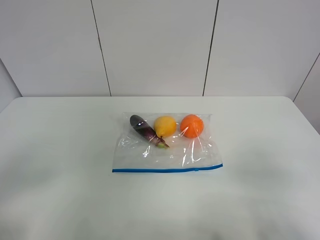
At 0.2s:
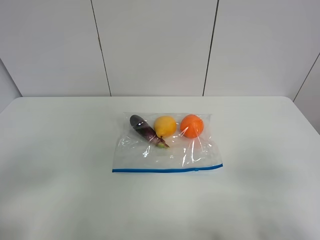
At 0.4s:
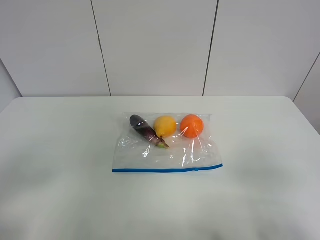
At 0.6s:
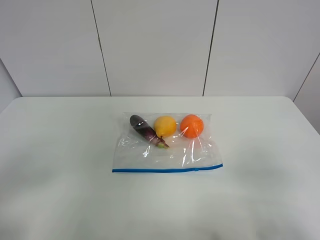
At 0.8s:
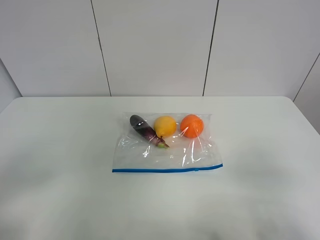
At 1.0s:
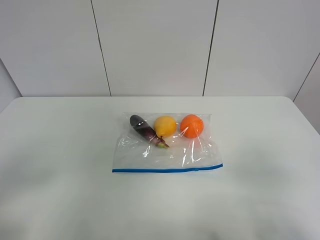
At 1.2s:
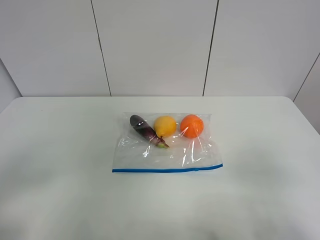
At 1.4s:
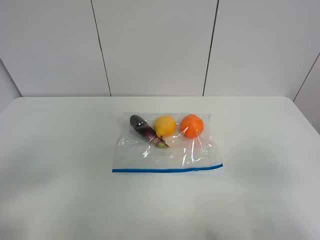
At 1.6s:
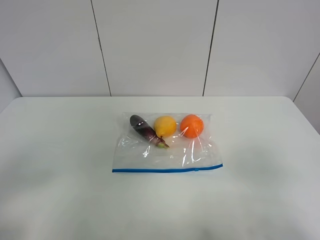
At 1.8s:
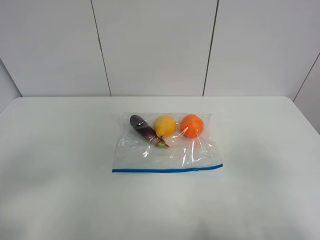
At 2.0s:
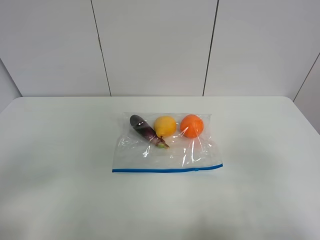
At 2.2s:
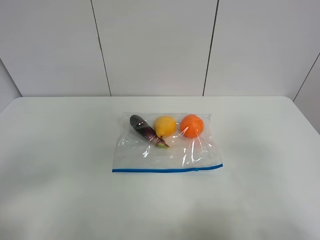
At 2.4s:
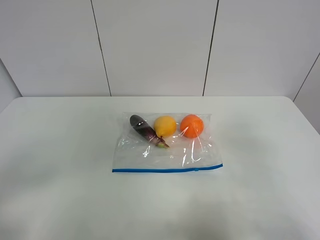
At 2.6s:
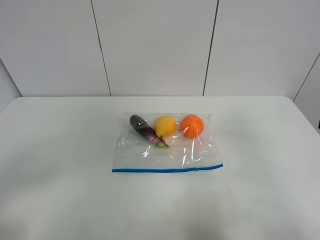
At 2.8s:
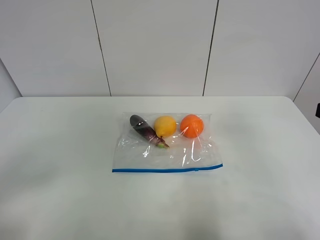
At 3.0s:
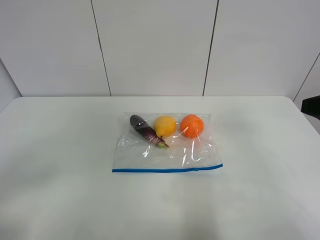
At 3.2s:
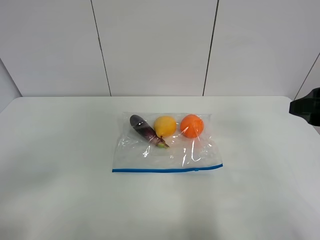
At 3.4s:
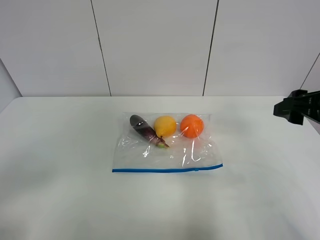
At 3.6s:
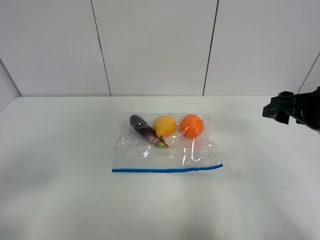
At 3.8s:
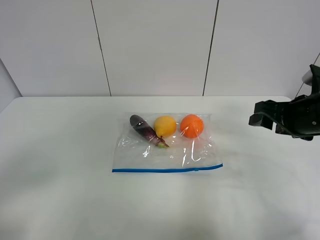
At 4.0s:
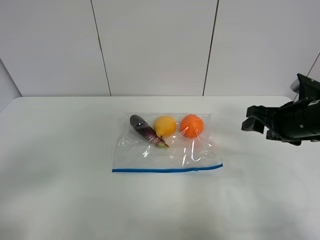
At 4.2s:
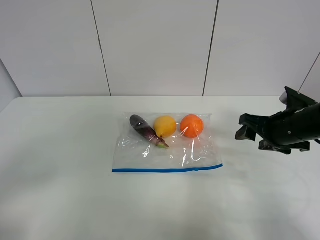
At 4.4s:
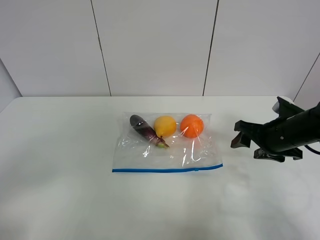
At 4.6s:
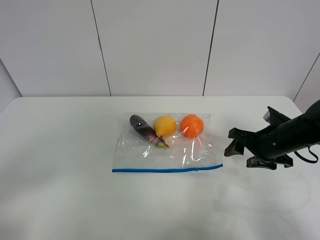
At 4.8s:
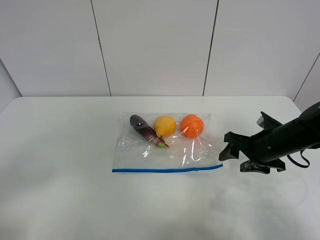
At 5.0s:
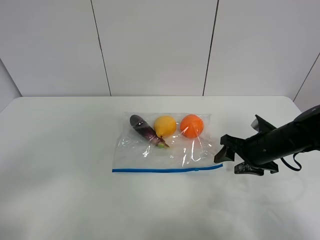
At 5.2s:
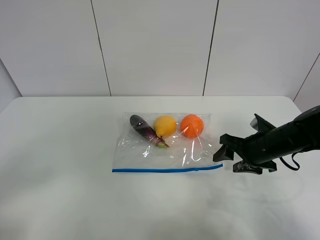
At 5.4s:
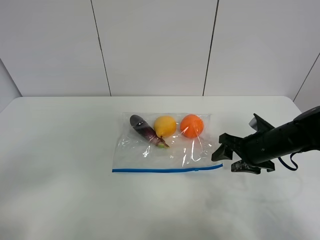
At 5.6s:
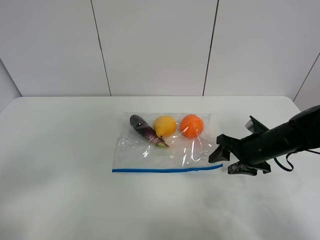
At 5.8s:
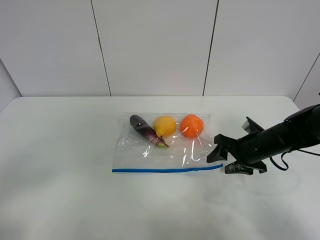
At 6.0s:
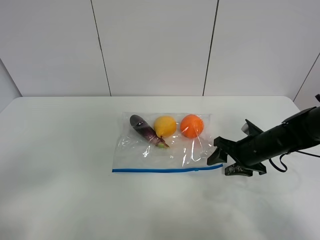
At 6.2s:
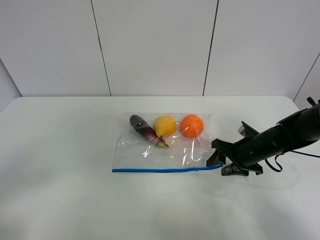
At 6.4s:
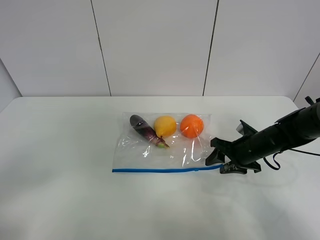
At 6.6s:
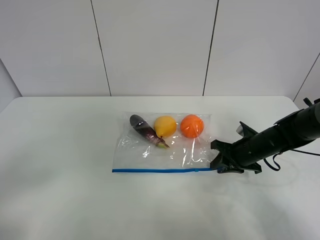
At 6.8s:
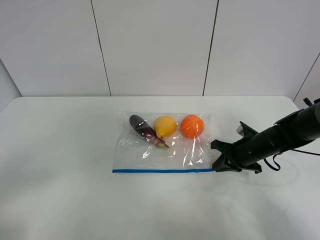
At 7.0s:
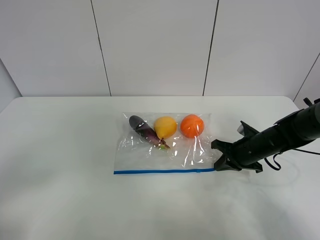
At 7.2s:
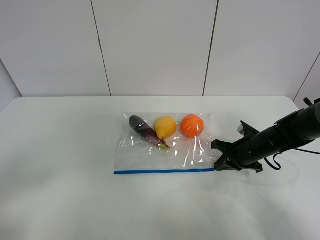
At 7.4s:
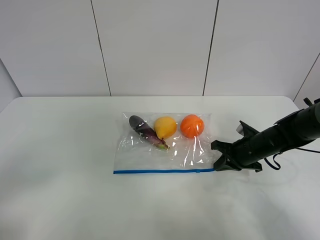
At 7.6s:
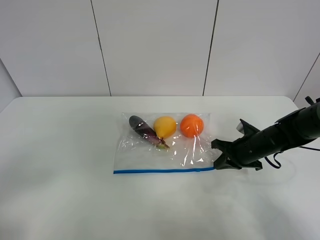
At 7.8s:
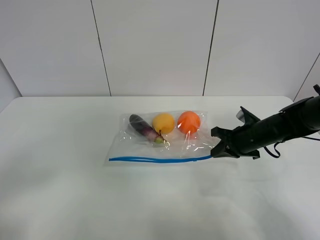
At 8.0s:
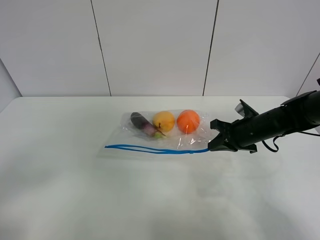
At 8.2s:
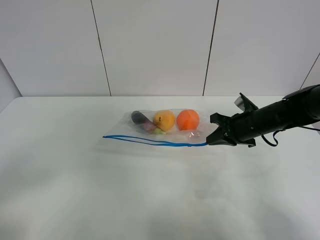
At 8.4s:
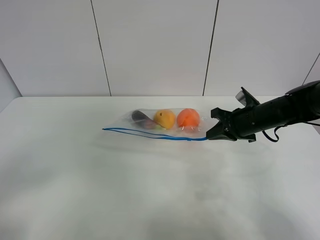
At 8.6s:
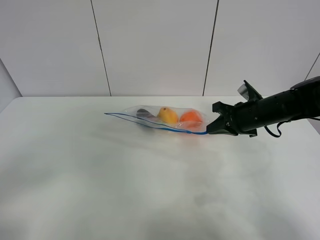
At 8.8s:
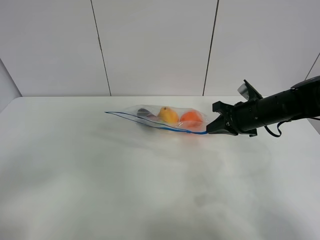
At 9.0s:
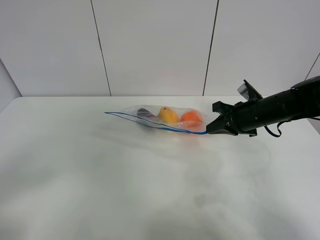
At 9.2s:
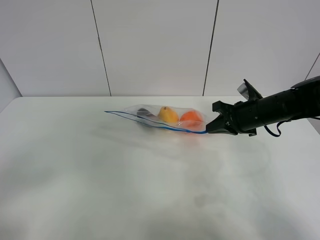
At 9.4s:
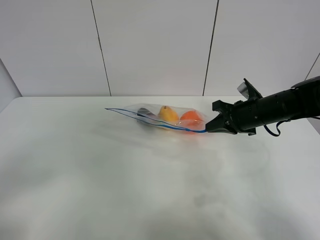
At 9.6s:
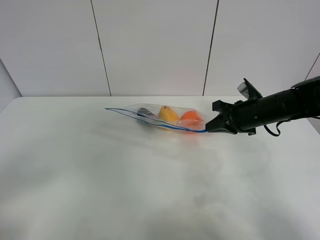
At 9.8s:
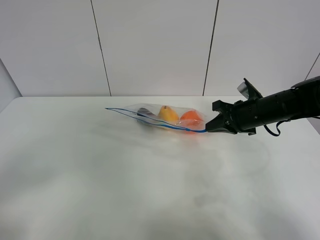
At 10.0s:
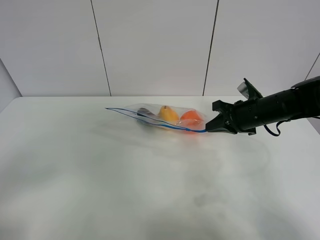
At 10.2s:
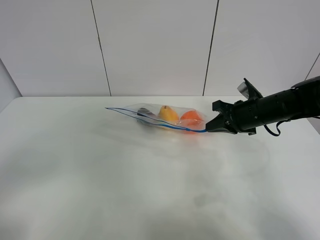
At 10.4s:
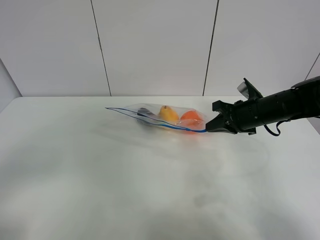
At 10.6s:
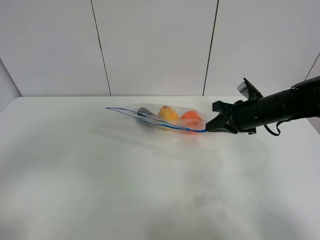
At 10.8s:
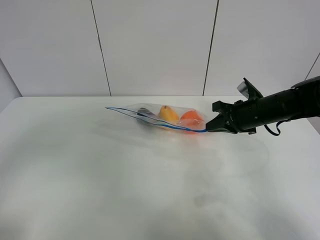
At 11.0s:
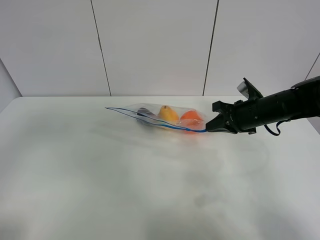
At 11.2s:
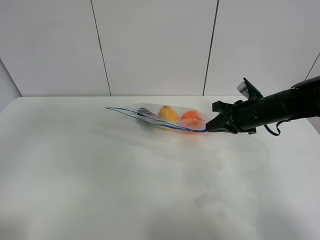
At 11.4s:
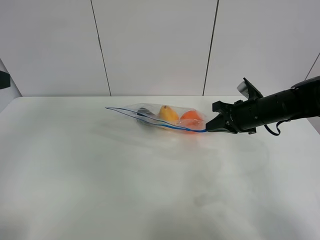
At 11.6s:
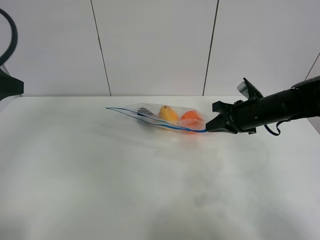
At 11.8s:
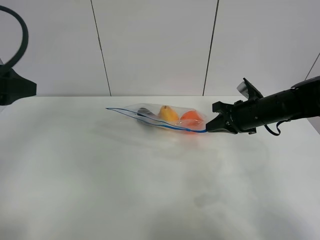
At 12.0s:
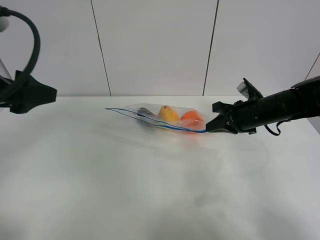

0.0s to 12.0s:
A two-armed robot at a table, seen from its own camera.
Step, 0.0s to 6.8s: Grasp the fruit bag with right gripper.
Step, 7.0s to 9.2s: Lift the fruit bag with your right gripper.
1.6s to 3.0s: The right gripper goes about 15 cm forward.
3.0s to 4.4s: The right gripper goes approximately 20 cm downward and forward.
4.4s to 6.0s: The right gripper shifts roughly 5 cm downward.
6.0s to 7.6s: The right gripper closes its fingers.
7.6s to 9.0s: The right gripper goes approximately 10 cm upward.
9.0s to 10.4s: The grippers move only a little.
10.4s to 12.0s: The left gripper heads forward, covering roughly 15 cm.

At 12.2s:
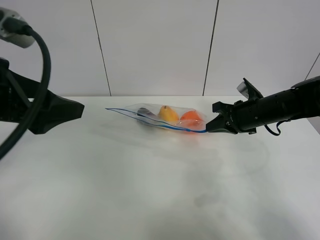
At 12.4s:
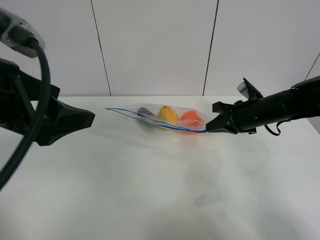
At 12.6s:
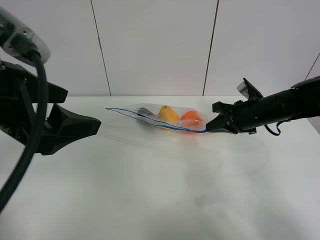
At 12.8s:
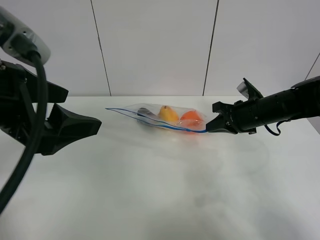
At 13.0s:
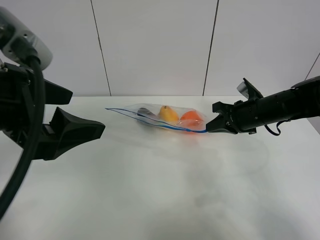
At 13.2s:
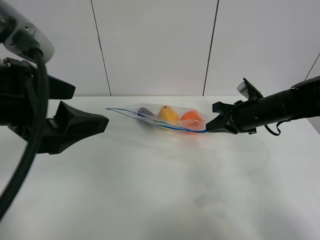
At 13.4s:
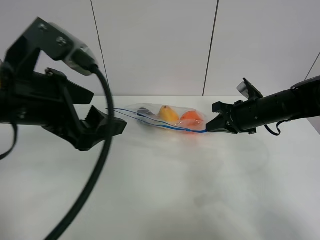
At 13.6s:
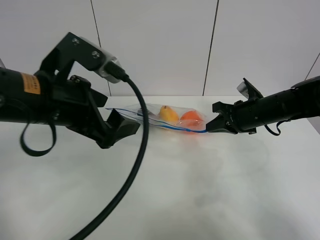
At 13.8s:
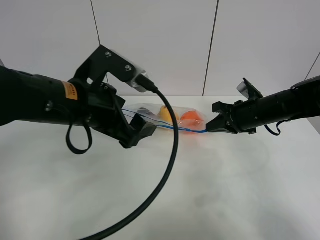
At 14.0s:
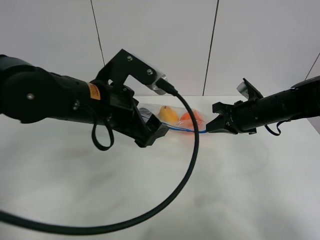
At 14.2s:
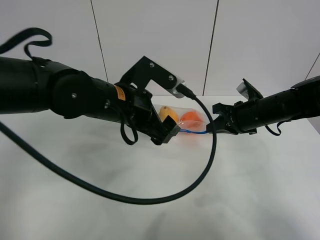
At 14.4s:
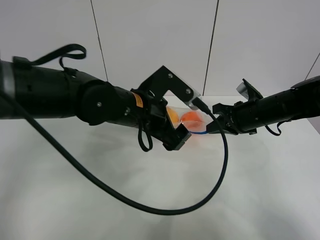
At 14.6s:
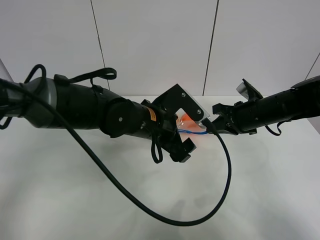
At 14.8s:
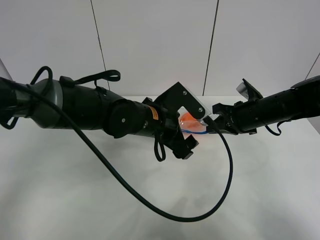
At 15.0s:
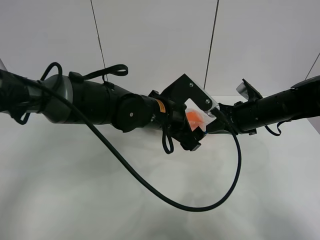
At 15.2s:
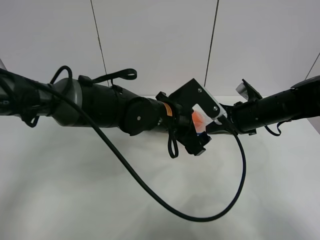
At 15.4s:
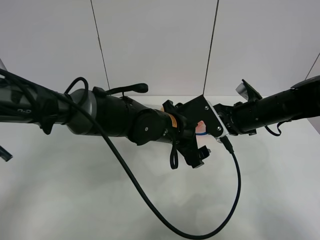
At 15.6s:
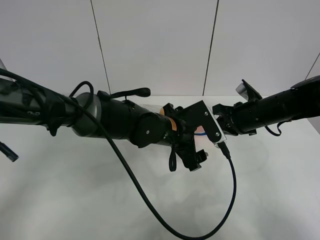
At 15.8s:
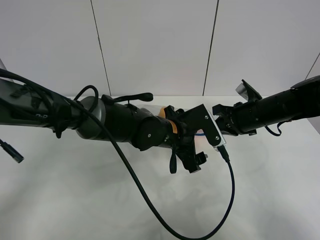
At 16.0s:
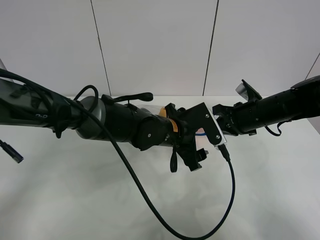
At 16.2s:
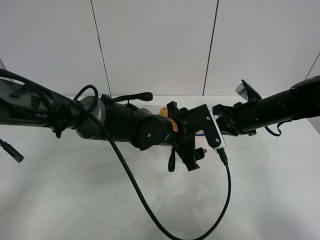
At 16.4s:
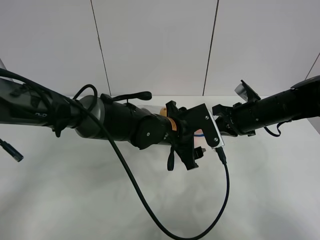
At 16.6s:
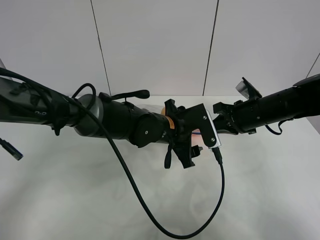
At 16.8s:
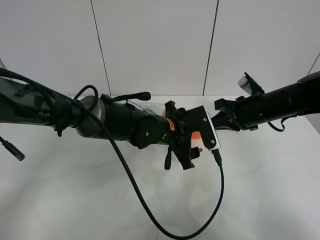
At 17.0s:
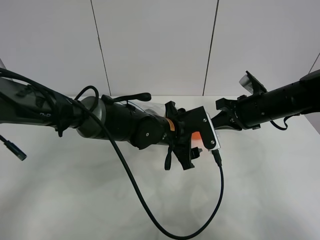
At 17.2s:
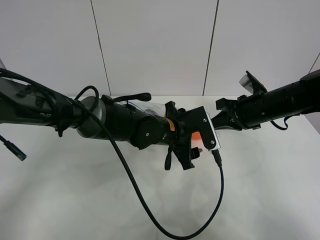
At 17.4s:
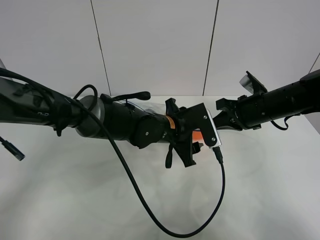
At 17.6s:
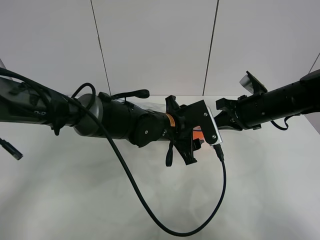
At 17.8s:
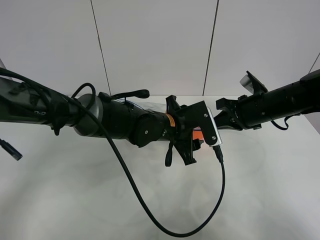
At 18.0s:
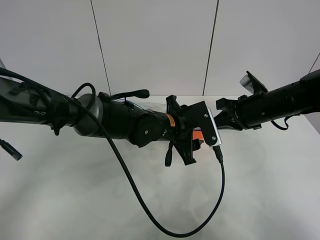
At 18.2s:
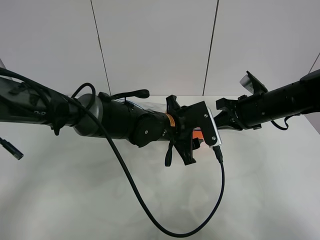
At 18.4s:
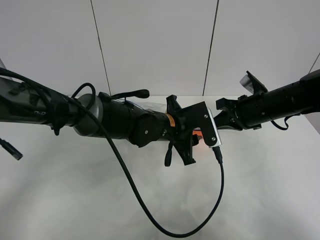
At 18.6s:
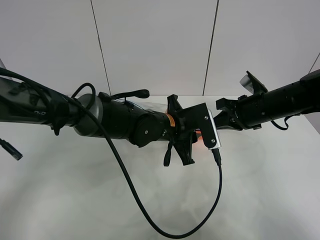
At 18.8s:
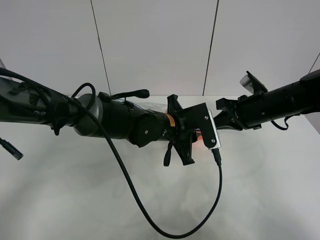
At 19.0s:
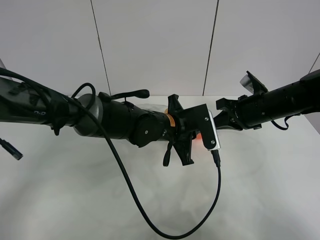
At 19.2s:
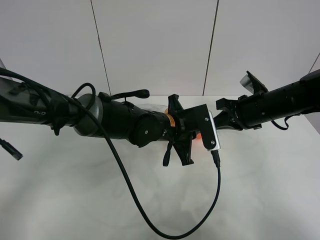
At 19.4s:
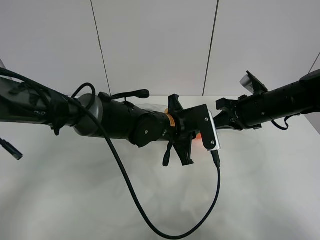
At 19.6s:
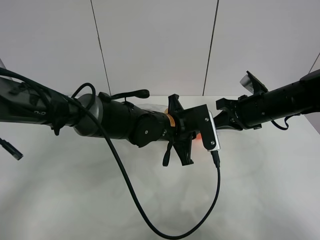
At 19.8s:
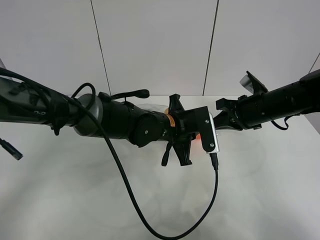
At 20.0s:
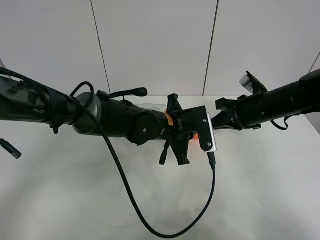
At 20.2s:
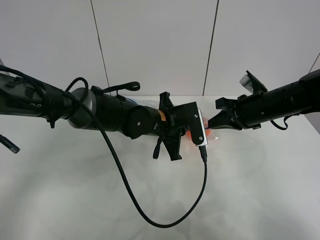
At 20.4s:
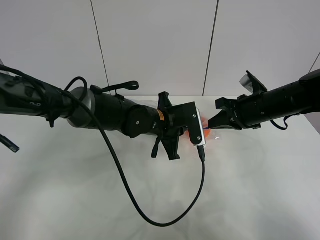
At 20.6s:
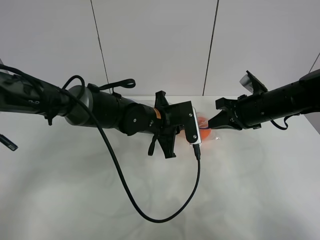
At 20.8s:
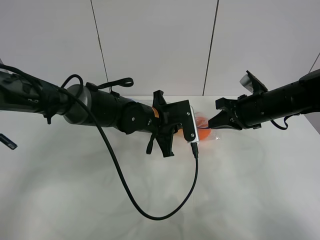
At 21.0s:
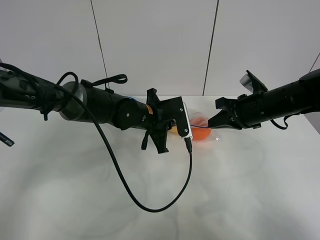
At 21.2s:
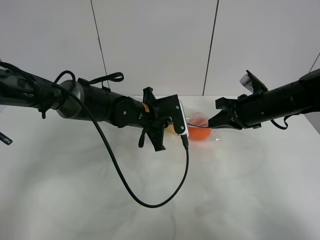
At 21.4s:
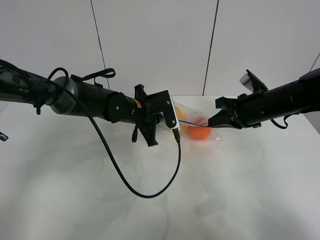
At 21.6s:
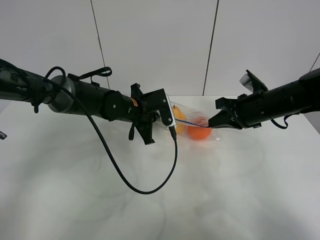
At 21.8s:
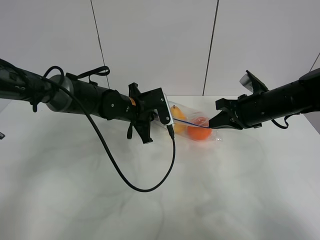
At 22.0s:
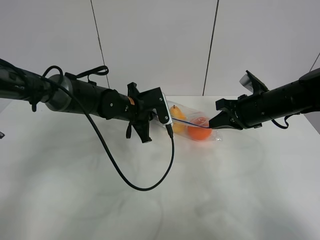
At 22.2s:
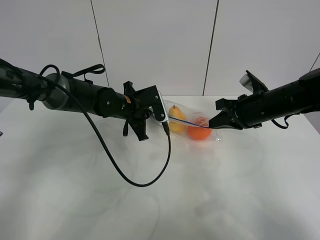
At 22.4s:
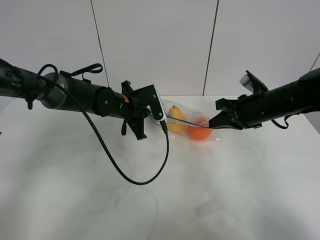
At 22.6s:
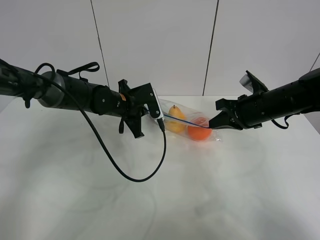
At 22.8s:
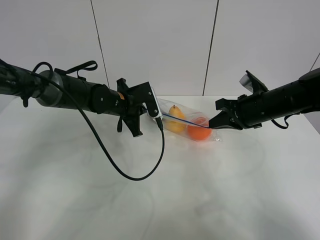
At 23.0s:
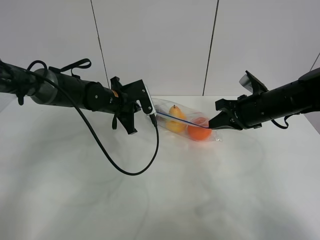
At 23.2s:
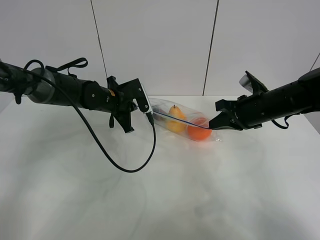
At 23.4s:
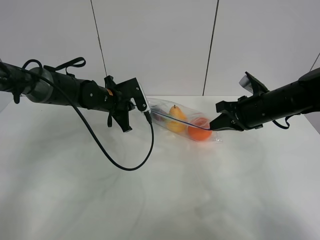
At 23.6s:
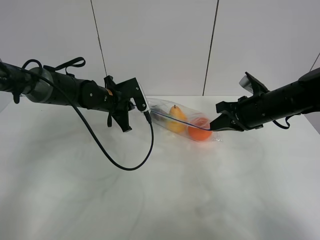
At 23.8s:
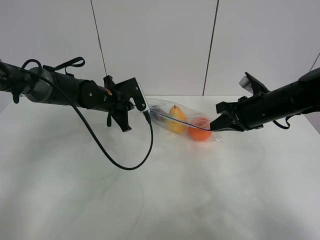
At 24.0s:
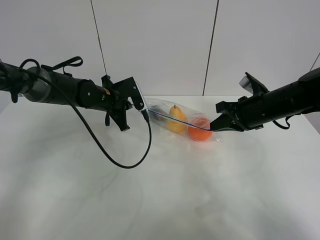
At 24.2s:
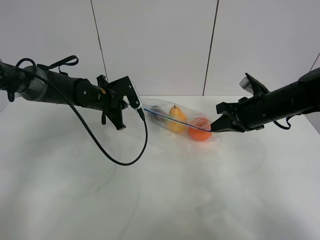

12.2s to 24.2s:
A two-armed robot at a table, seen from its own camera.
12.2s to 13.8s: The left gripper travels to the right, downward and forward by approximately 15 cm.
13.8s to 15.2s: The left gripper shifts about 15 cm to the right, downward and forward.
15.2s to 16.6s: The grippers stay close to where they were, moving slightly.
16.6s to 18.2s: Both grippers stay about where they are.
18.2s to 19.8s: The left gripper closes its fingers.
19.8s to 21.2s: The left gripper is displaced to the left by some 5 cm.
21.2s to 22.6s: The left gripper moves to the left, about 5 cm.
22.6s to 24.2s: The left gripper moves to the left, roughly 5 cm.
